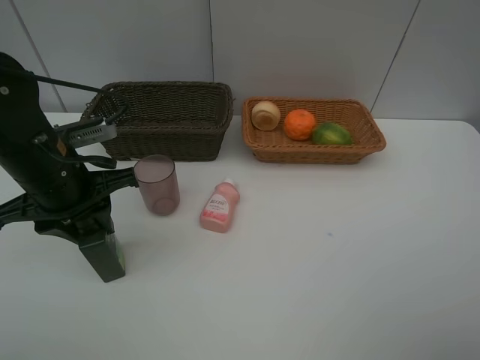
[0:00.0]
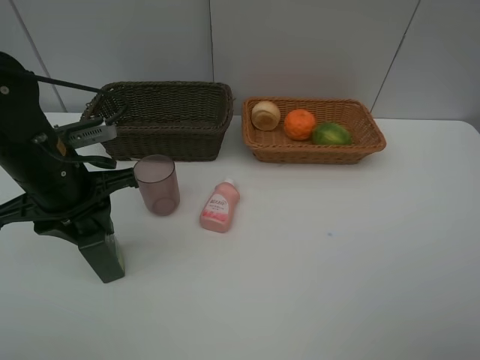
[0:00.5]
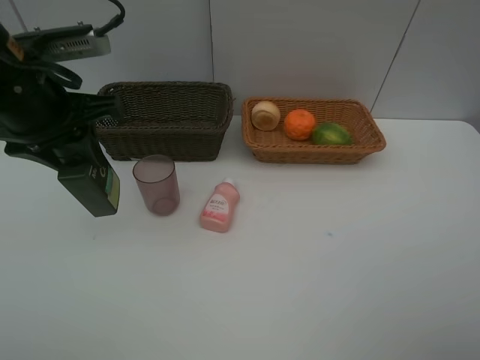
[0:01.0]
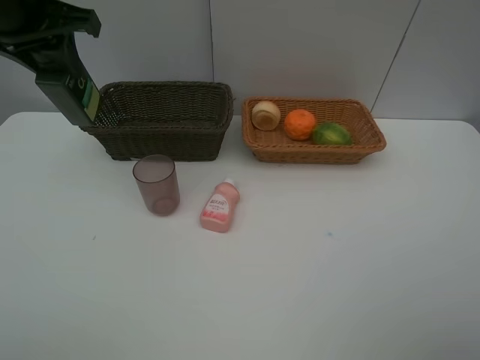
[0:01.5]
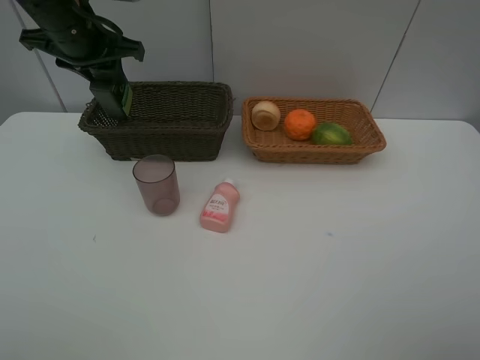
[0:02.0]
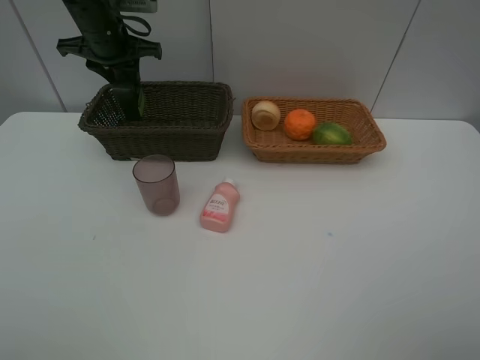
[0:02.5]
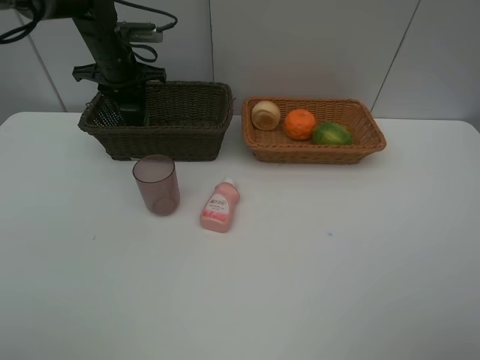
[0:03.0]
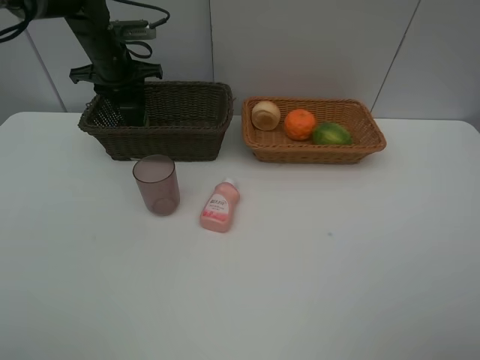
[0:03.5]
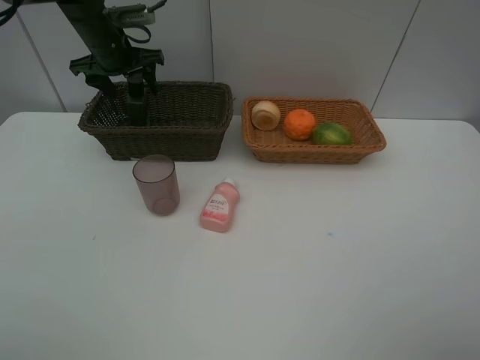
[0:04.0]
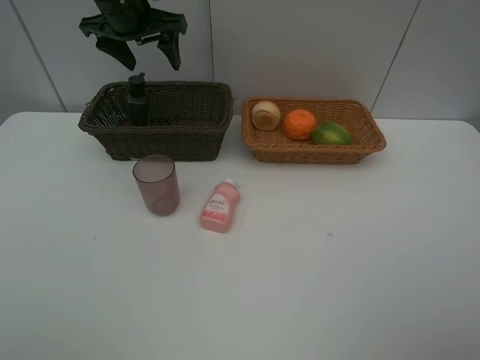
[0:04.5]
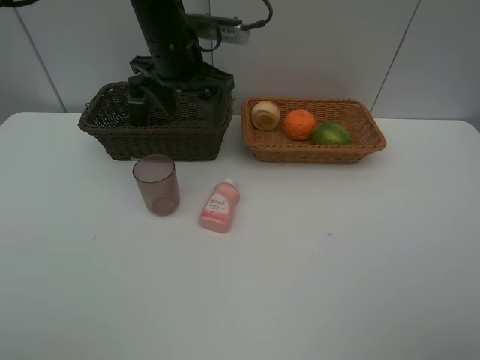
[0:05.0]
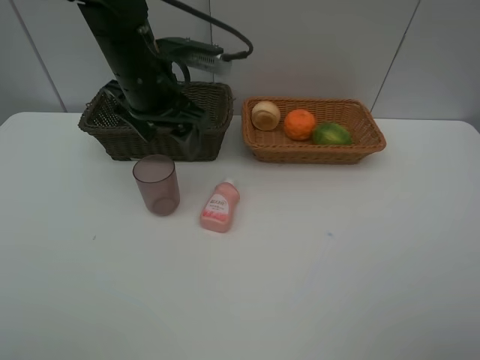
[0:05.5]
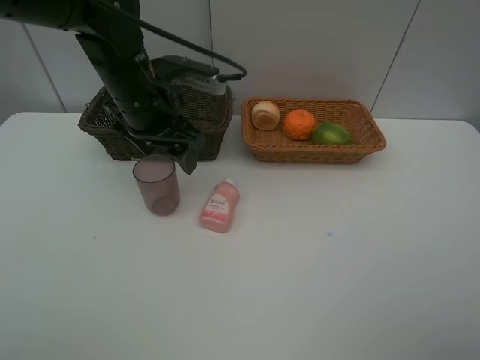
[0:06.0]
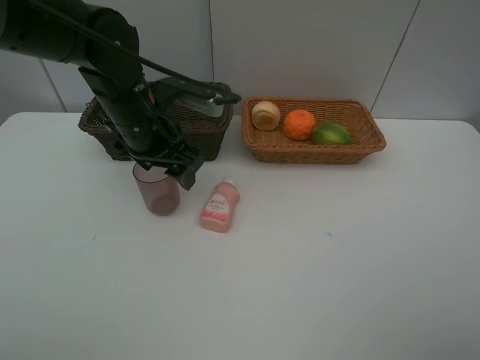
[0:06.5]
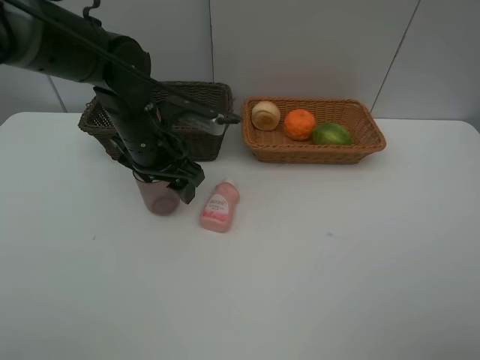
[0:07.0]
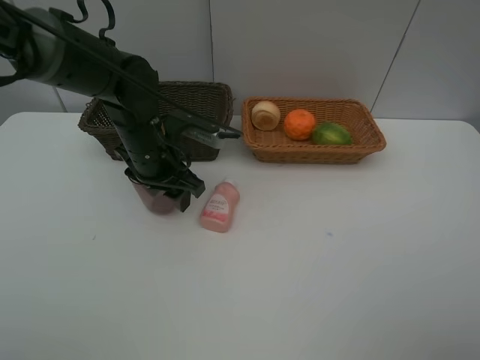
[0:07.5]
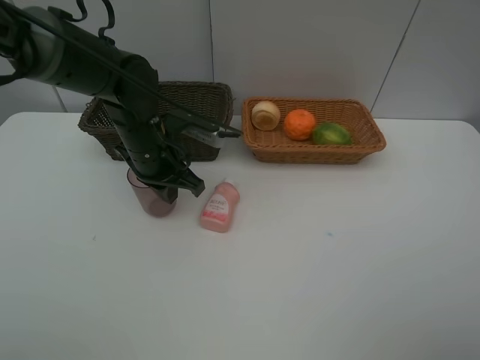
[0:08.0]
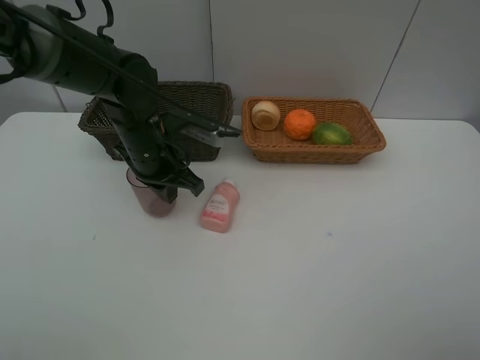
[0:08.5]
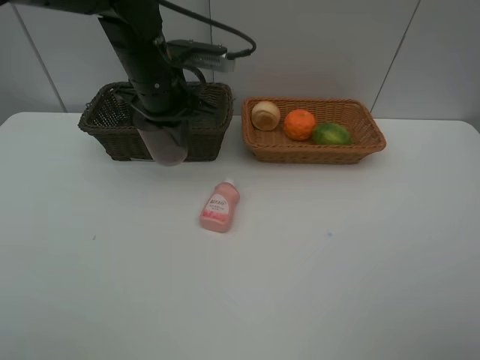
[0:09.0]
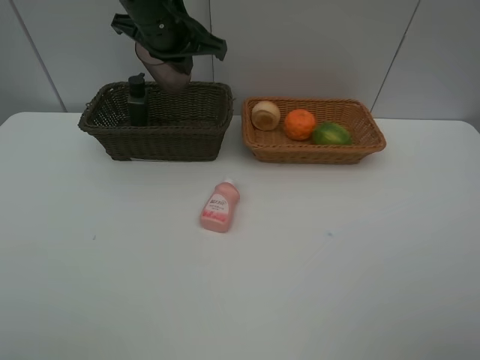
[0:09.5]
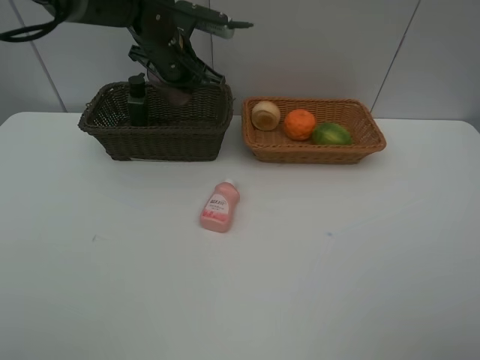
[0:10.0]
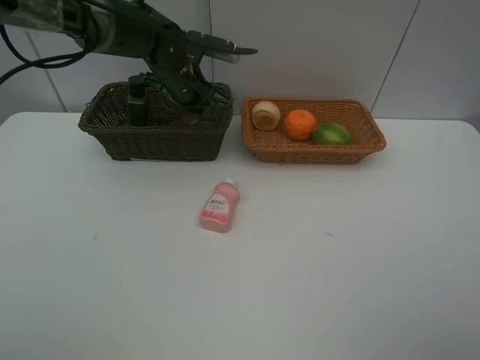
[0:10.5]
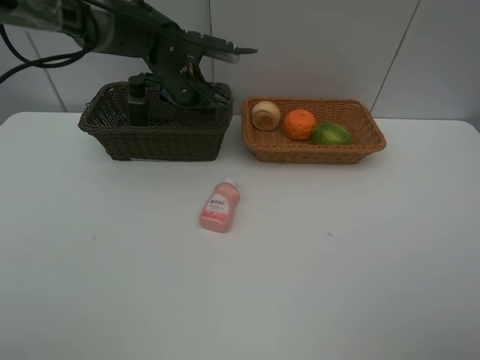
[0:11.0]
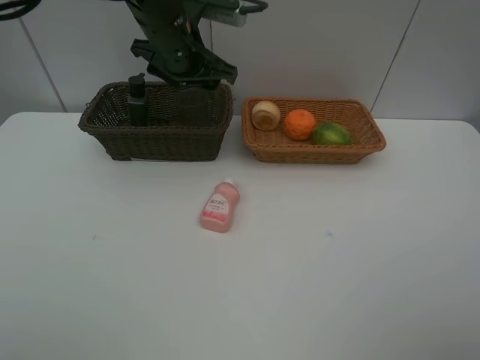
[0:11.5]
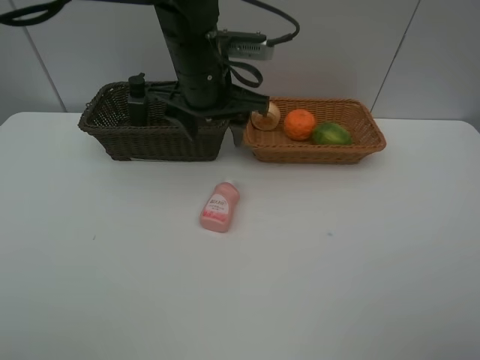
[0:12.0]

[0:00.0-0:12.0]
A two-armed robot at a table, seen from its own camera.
Task of the whole recording: place multiple objects separately in different baskets.
0:00.0 to 0:02.0: The left gripper goes roughly 20 cm forward and upward.
0:02.0 to 0:04.0: The left gripper moves forward, about 10 cm, and opens up.
0:04.0 to 0:06.0: The left gripper moves backward and to the right, about 20 cm.
0:06.0 to 0:08.0: The left gripper goes approximately 10 cm downward, and closes its fingers.
0:08.0 to 0:10.0: The left gripper shifts some 15 cm forward and upward.
0:10.0 to 0:12.0: The left gripper is displaced backward and to the right by approximately 10 cm, and opens.

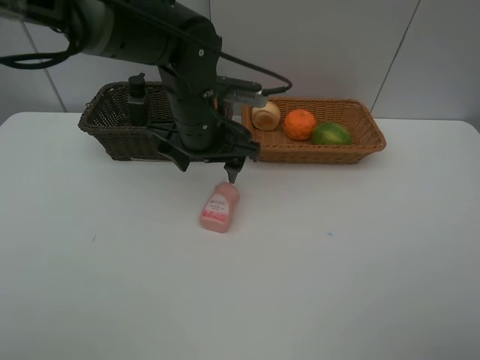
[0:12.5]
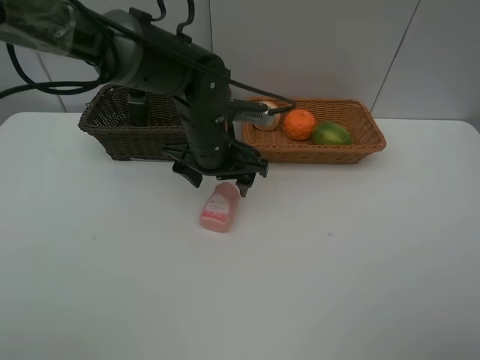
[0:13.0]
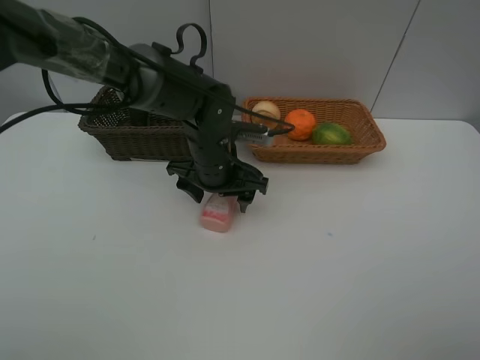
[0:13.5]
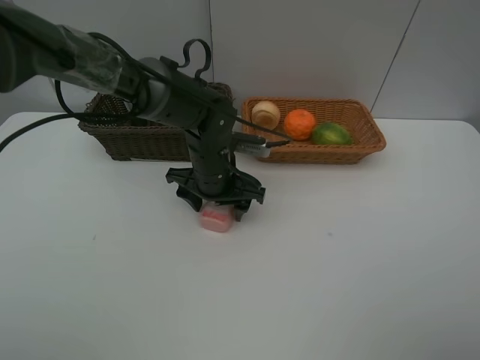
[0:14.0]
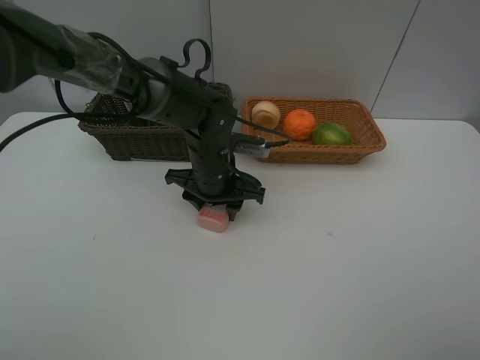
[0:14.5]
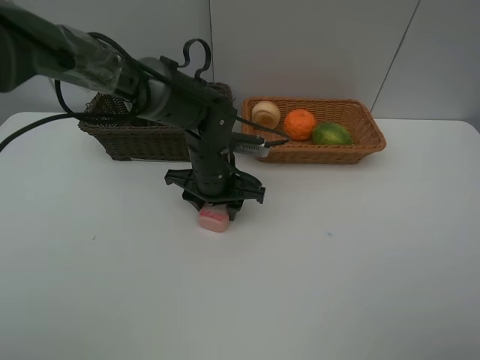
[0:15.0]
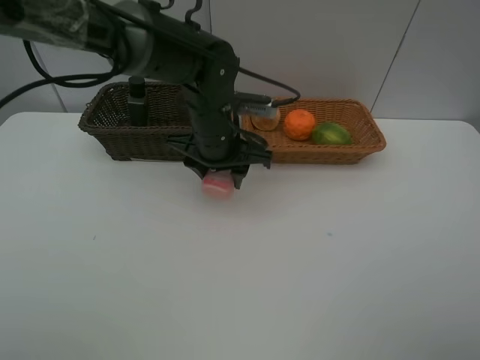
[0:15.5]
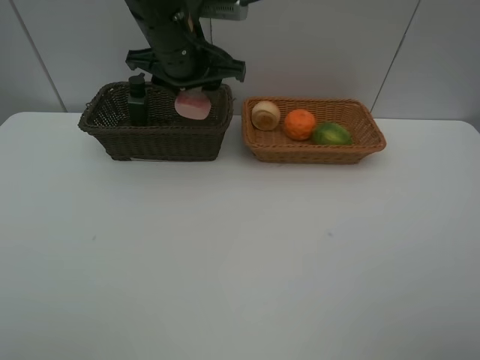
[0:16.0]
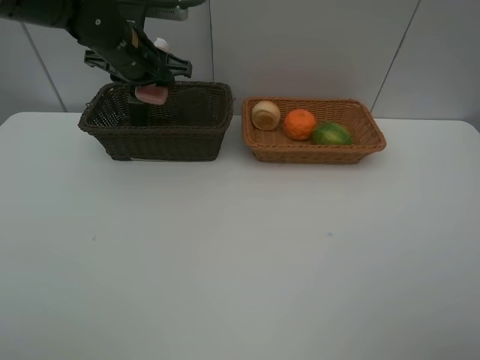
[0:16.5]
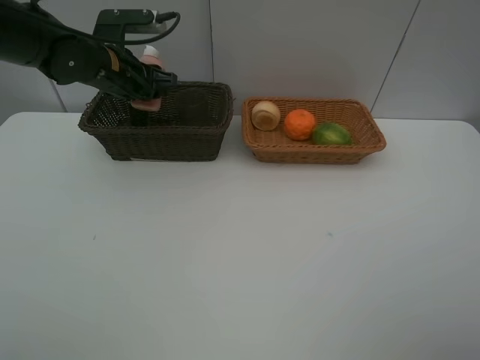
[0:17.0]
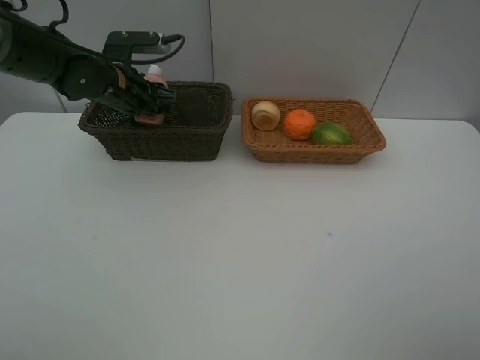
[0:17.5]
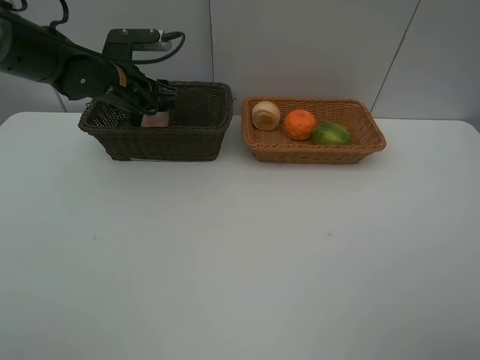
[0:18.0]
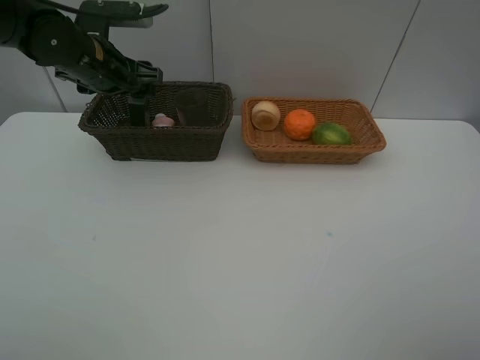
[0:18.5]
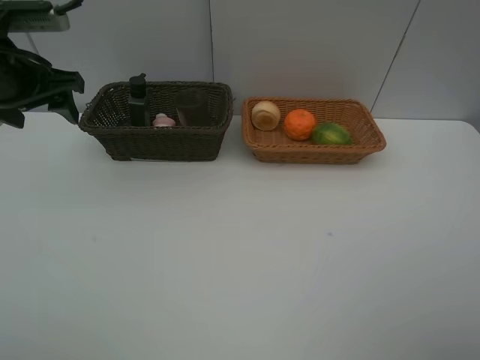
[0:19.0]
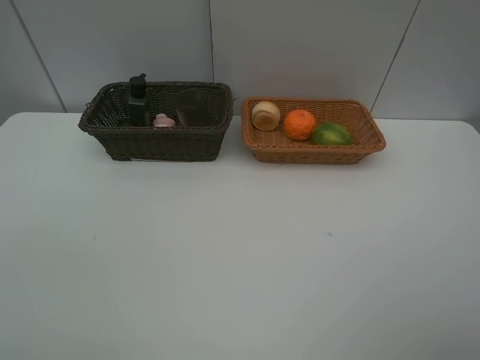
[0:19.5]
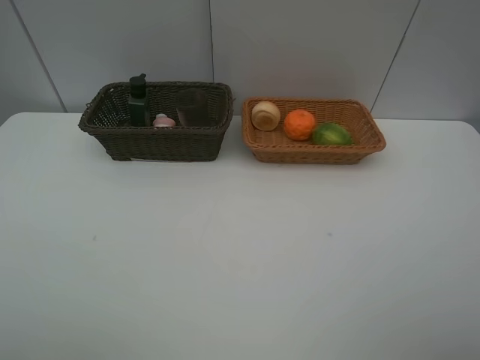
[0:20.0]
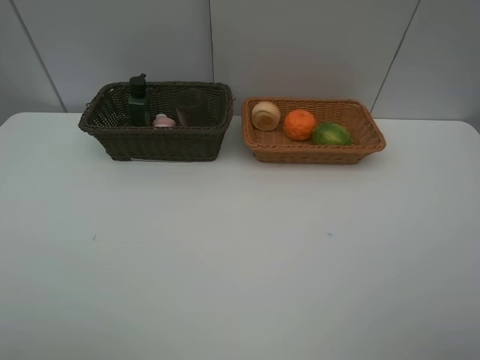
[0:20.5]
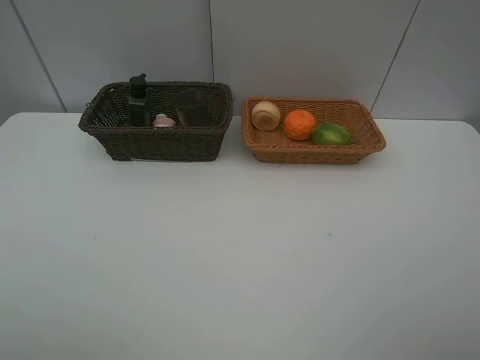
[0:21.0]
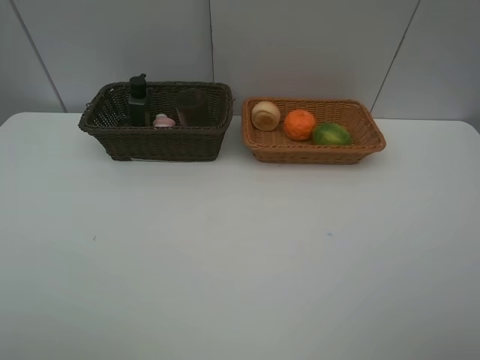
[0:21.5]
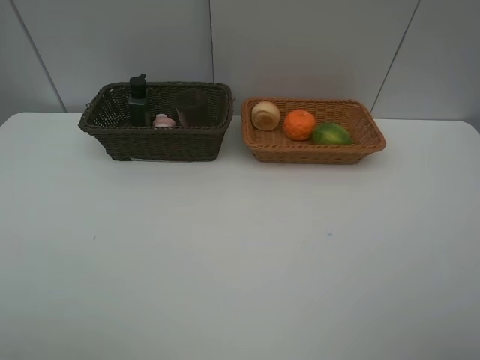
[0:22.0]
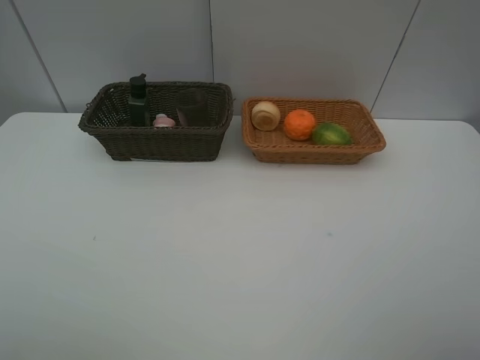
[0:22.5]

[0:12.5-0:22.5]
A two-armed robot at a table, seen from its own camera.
Task of the whole recording: place multiple objects separately in different baskets.
0:12.5 to 0:14.5: The left gripper goes some 10 cm downward.
0:14.5 to 0:16.5: The left gripper is displaced upward, to the left and forward by approximately 20 cm.
0:18.5 to 0:20.5: The left gripper moves backward, roughly 40 cm.

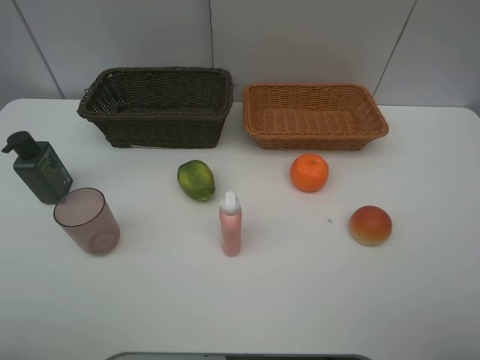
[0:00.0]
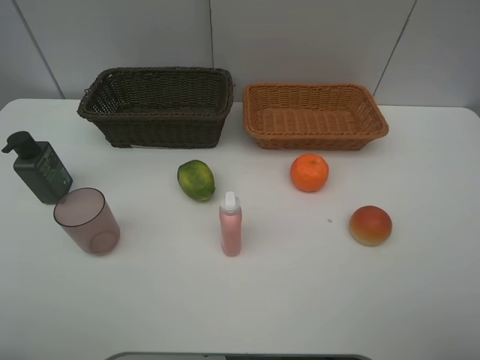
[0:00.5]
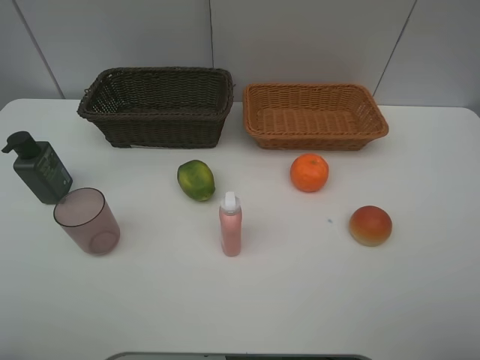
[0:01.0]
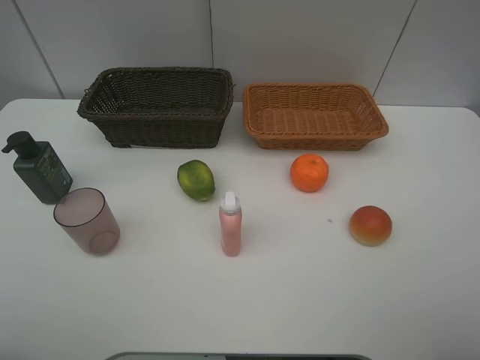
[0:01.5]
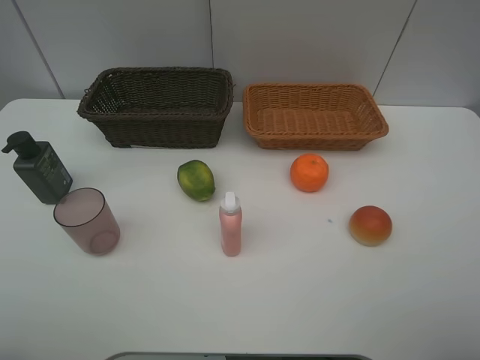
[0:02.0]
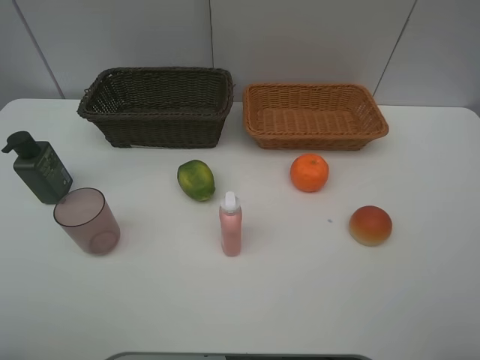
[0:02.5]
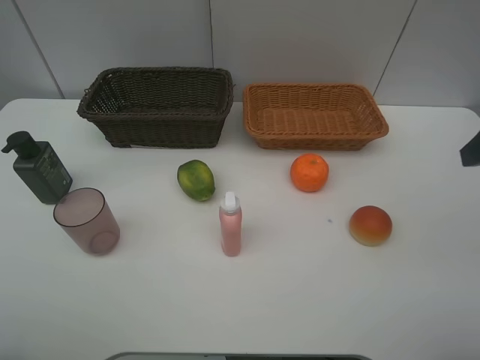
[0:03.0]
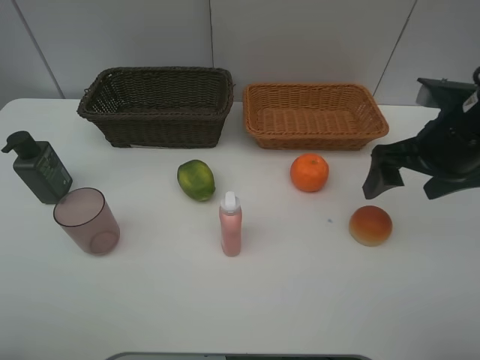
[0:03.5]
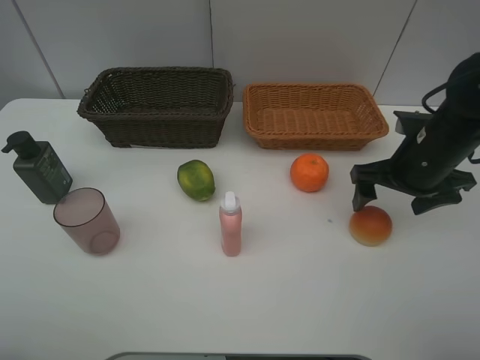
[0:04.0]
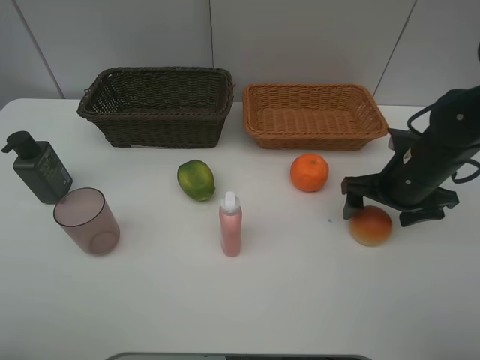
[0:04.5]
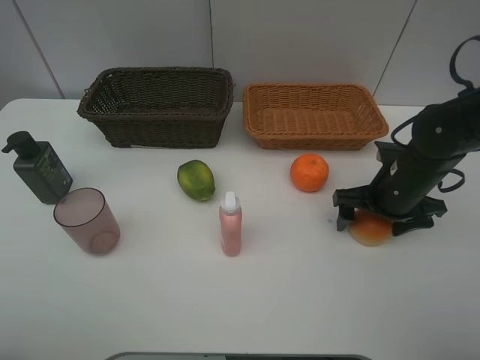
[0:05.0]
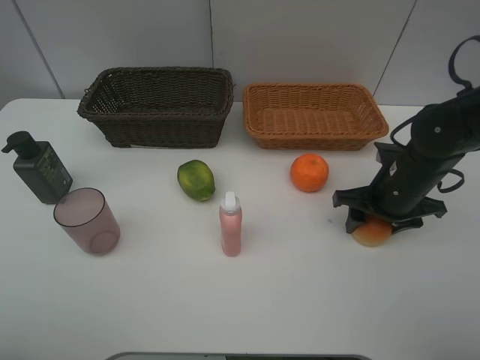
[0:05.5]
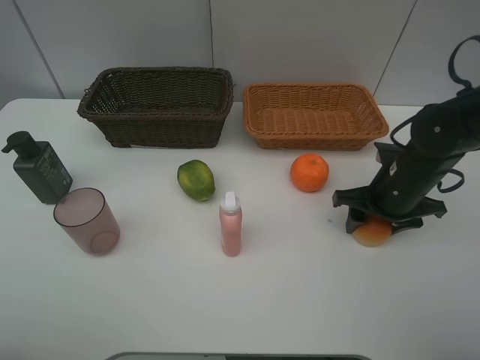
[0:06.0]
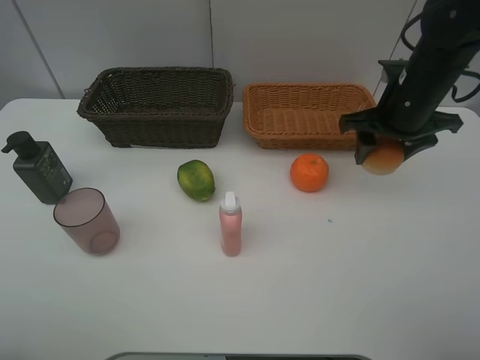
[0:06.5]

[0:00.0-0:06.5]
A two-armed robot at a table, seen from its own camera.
Task of the whole recording: place multiple objects separately in different baskets.
0:00.0 to 0:02.0: Neither gripper changes place.
0:02.0 to 0:04.5: The right gripper is displaced forward and downward by some 30 cm.
0:04.5 to 0:06.5: The right gripper shifts some 10 cm upward and forward, and closes.
